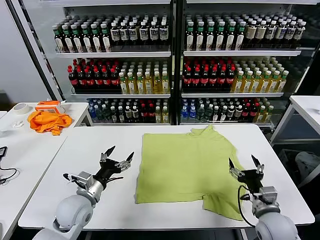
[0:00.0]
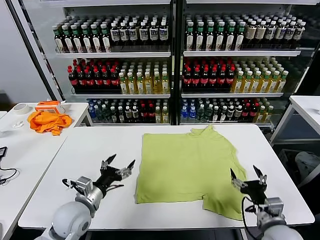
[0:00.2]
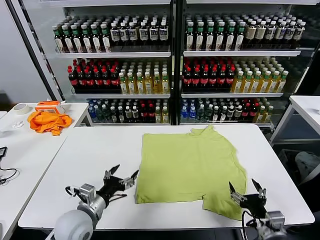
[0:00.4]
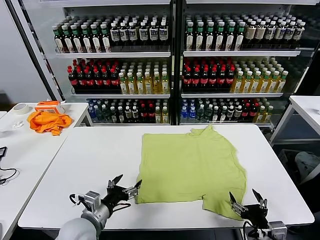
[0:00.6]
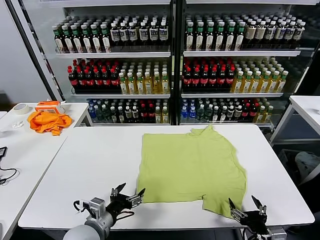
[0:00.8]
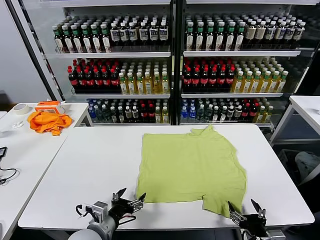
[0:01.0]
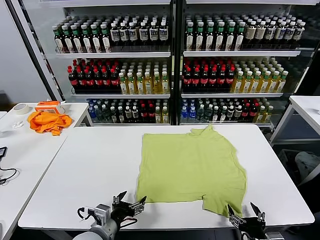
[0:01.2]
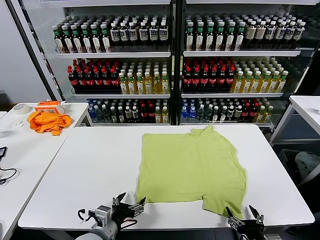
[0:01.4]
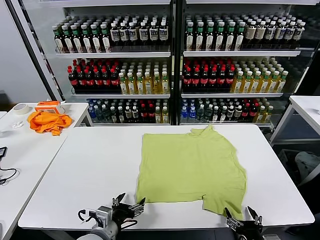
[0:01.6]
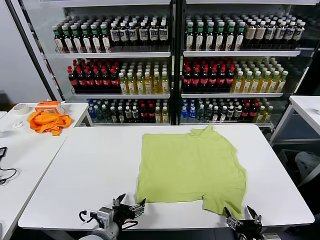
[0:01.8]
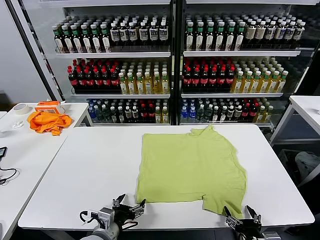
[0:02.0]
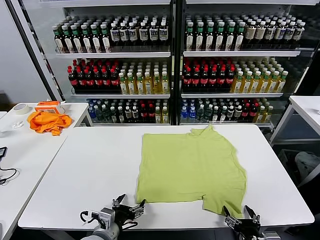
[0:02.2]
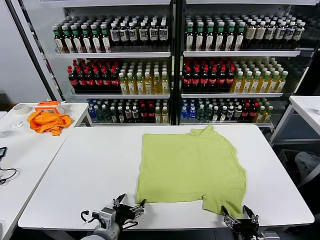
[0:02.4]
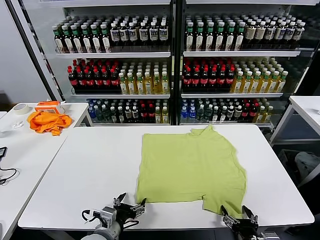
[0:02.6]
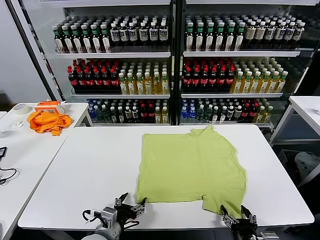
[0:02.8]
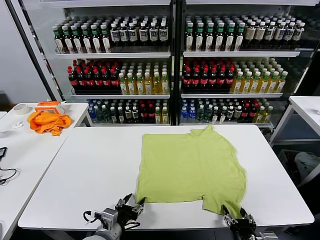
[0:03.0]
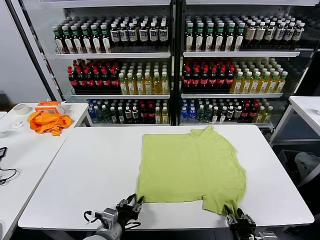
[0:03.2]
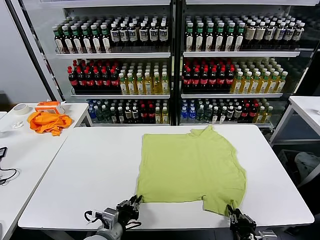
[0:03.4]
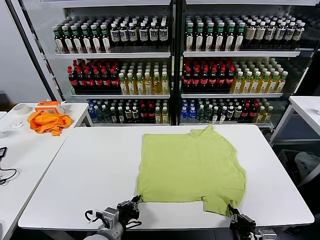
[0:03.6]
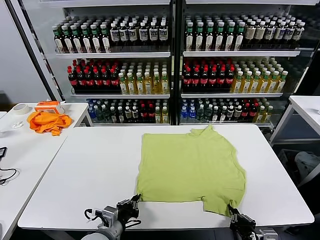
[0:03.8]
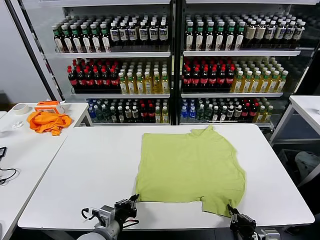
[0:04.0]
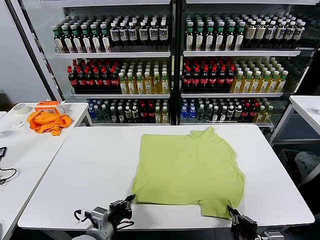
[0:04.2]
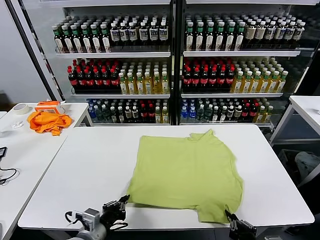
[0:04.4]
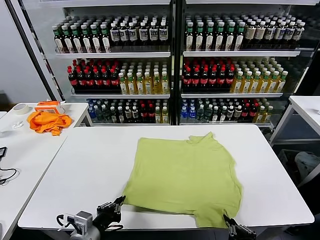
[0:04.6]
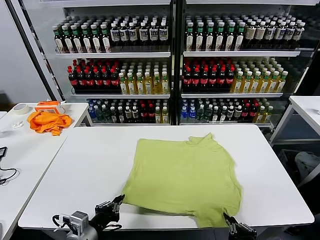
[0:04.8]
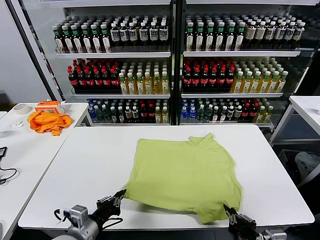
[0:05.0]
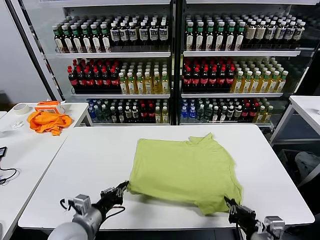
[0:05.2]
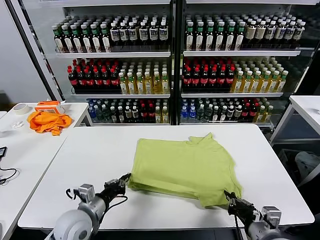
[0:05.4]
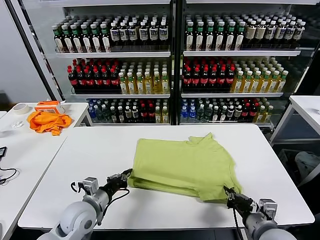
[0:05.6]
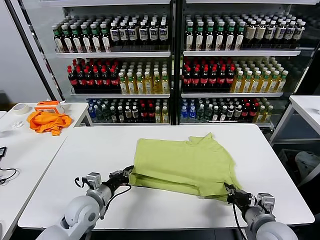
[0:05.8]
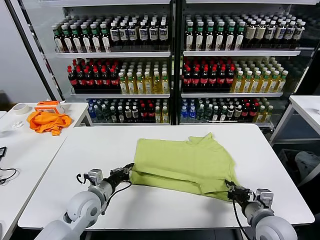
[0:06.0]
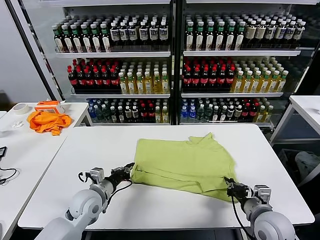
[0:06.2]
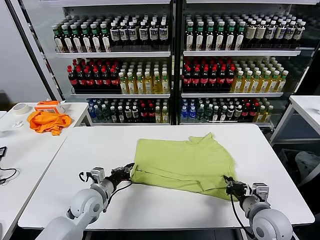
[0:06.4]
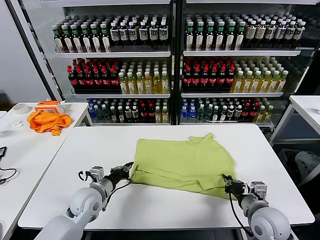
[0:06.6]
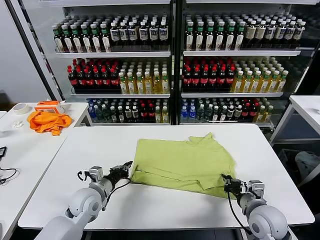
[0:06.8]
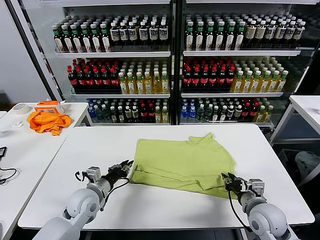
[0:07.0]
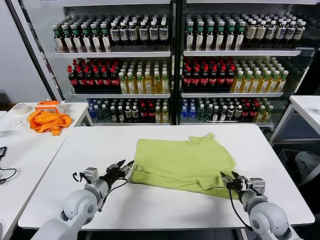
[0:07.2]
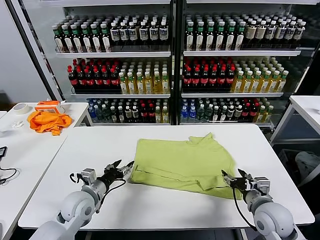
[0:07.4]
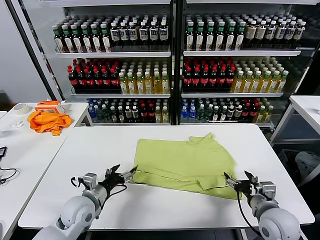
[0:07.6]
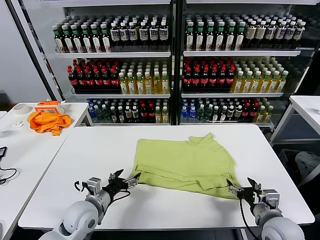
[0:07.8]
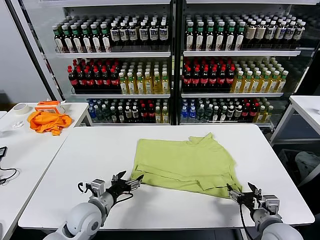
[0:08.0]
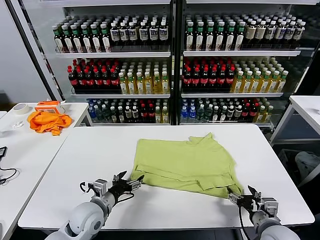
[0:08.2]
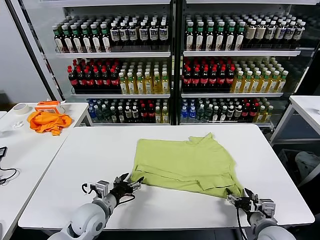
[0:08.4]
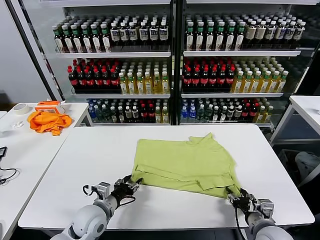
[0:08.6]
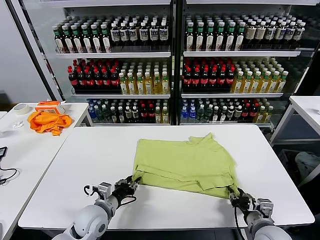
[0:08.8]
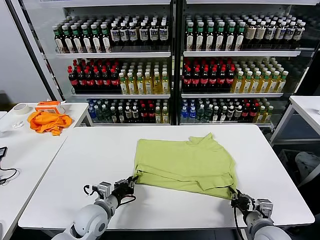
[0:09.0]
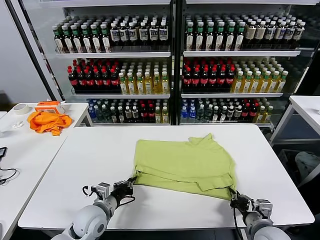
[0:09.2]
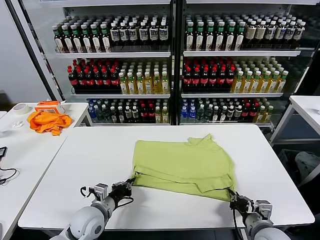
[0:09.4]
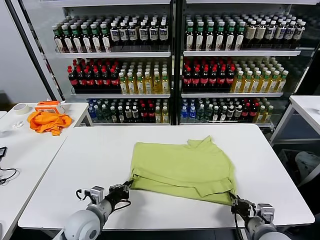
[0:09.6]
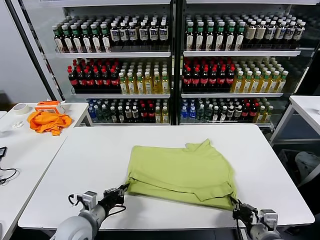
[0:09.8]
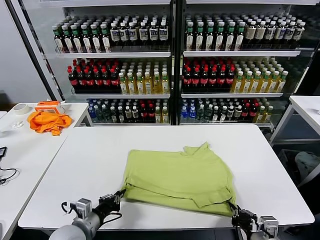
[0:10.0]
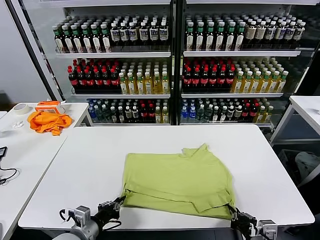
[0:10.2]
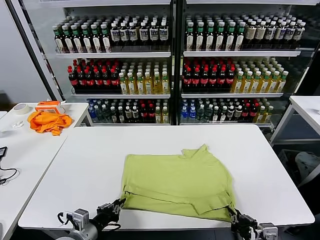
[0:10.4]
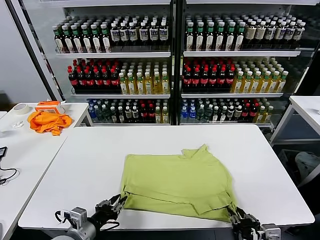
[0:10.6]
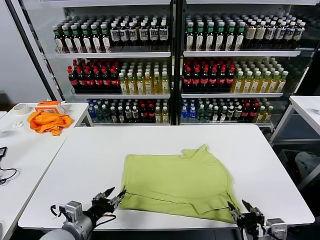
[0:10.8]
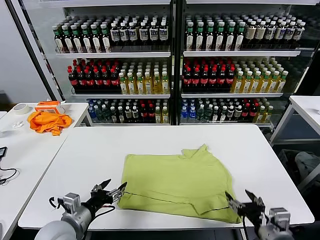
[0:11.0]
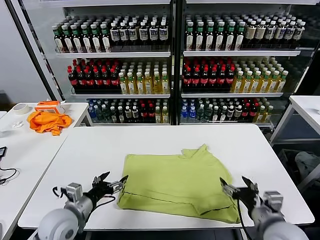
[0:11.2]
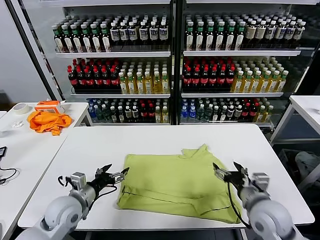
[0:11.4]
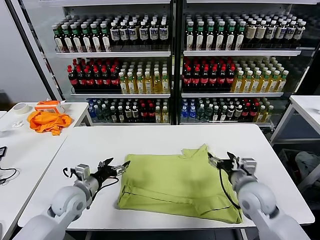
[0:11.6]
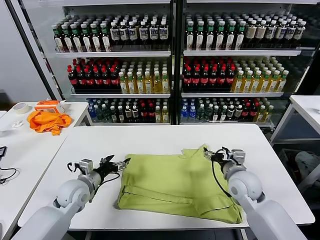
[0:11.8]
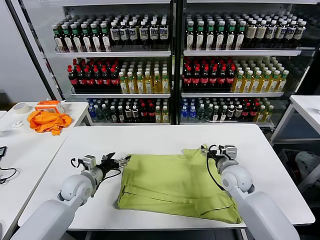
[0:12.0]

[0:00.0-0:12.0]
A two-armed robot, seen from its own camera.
Task of the whole recording: fold and organize the clothes.
Step, 0:00.0 to 0:03.6: use both grippers simultaneously to clamp the lower edge of the clothing fabric.
Step, 0:03.8 to 0:07.2: use both grippers to drag the lower edge of the fabric forward and fold it over the upper edge.
Step, 0:07.4 to 0:10.6: Drag the clothes downward with both gripper.
0:01.6 to 0:03.0: The right gripper closes its fingers.
0:03.0 to 0:04.4: The left gripper changes place by about 5 cm, and closes its fingers. Meanwhile the right gripper shifts about 5 cm upward, and closes its fingers.
0:04.4 to 0:06.0: The grippers both shift forward by approximately 15 cm.
0:06.0 to 0:07.6: The left gripper opens; the right gripper opens.
0:07.6 to 0:09.0: The left gripper closes; the right gripper closes up.
0:09.0 to 0:10.4: The two grippers go some 10 cm backward.
0:10.4 to 0:12.0: Both grippers move forward, approximately 25 cm. The right gripper opens. Meanwhile the left gripper opens up.

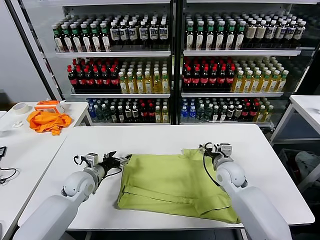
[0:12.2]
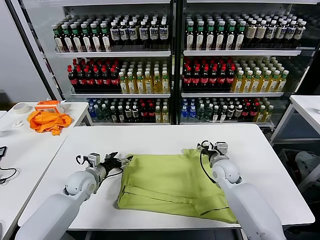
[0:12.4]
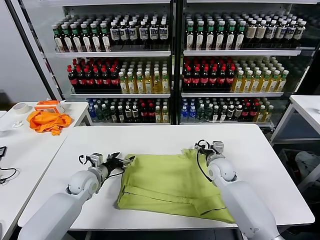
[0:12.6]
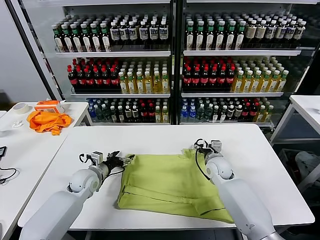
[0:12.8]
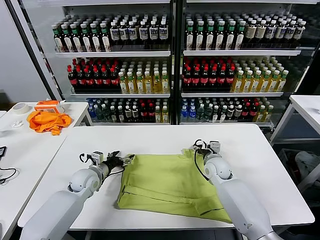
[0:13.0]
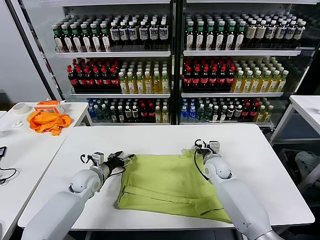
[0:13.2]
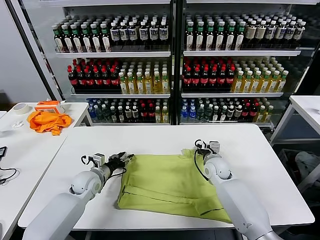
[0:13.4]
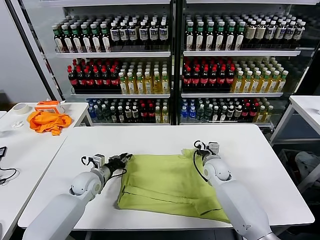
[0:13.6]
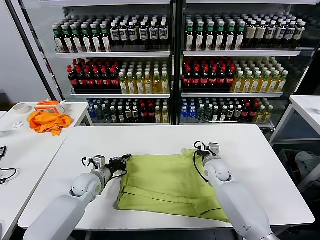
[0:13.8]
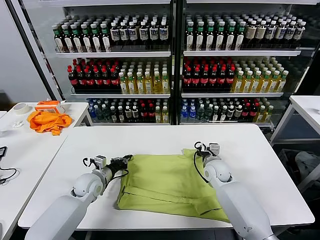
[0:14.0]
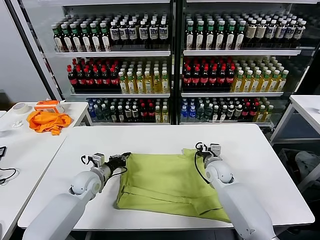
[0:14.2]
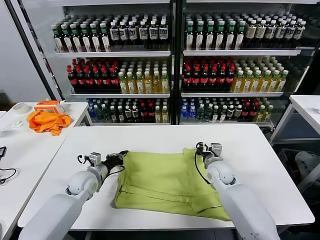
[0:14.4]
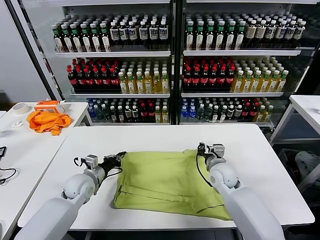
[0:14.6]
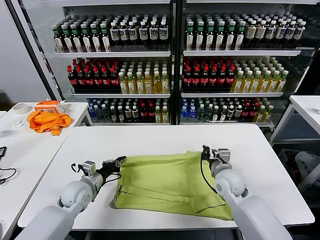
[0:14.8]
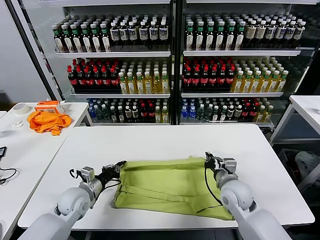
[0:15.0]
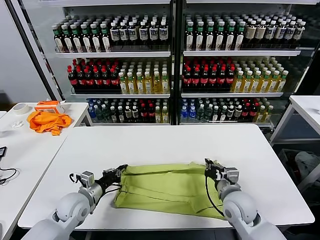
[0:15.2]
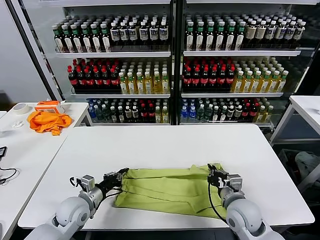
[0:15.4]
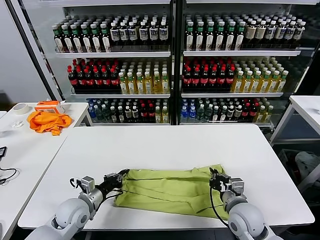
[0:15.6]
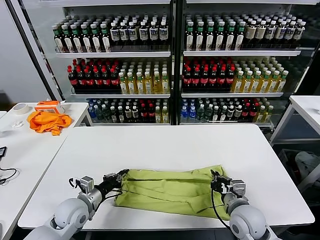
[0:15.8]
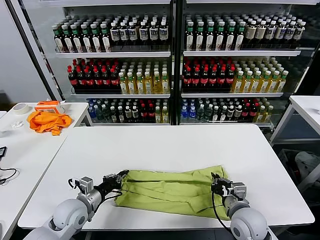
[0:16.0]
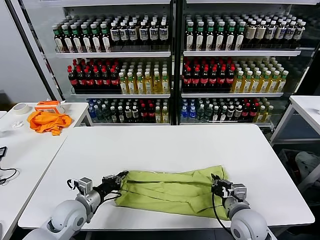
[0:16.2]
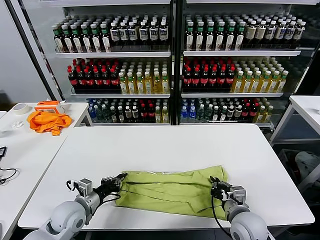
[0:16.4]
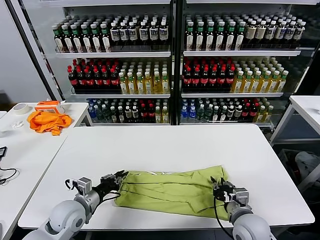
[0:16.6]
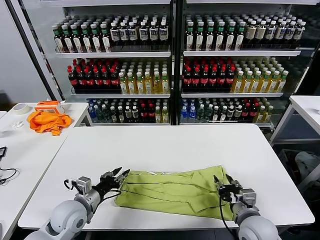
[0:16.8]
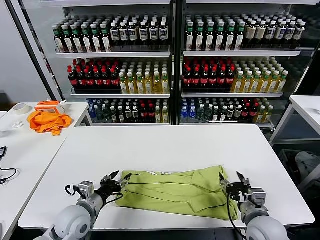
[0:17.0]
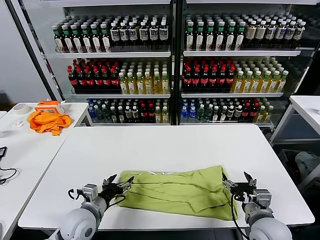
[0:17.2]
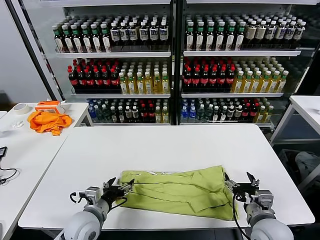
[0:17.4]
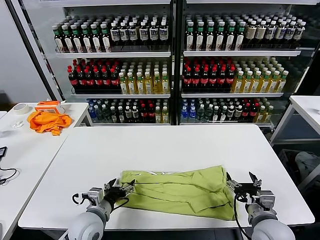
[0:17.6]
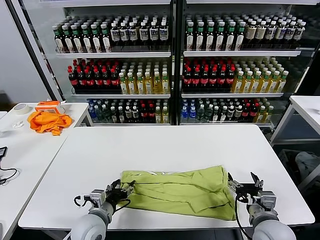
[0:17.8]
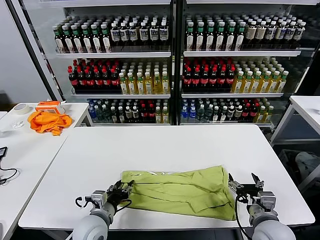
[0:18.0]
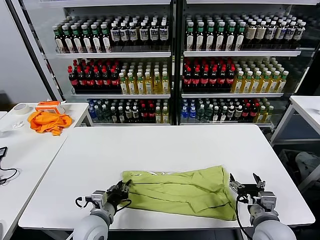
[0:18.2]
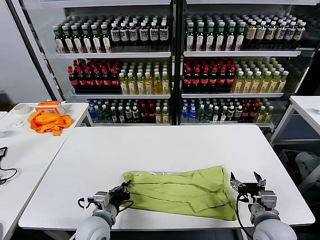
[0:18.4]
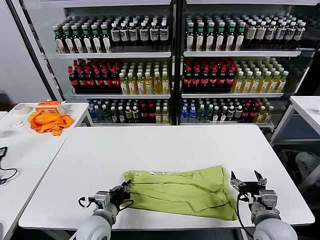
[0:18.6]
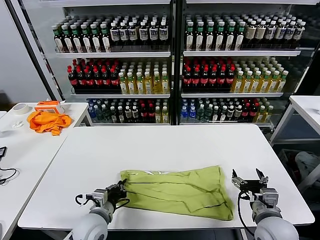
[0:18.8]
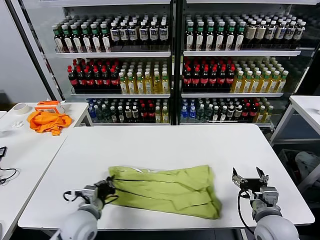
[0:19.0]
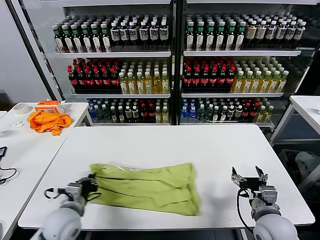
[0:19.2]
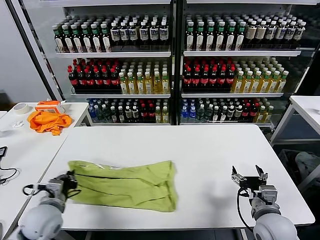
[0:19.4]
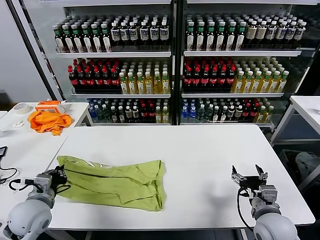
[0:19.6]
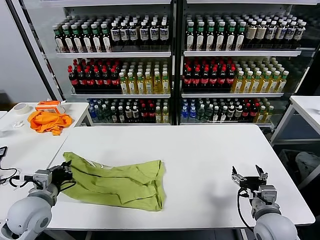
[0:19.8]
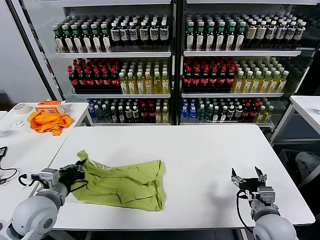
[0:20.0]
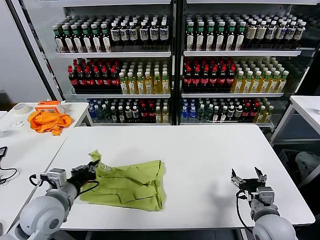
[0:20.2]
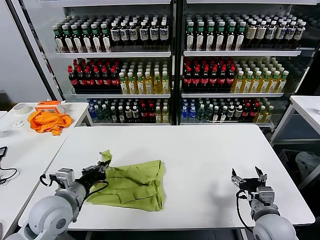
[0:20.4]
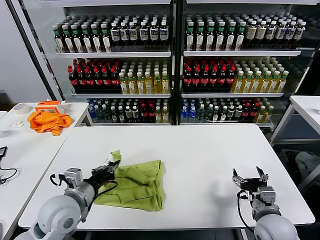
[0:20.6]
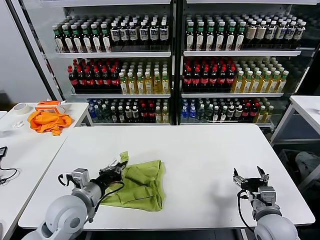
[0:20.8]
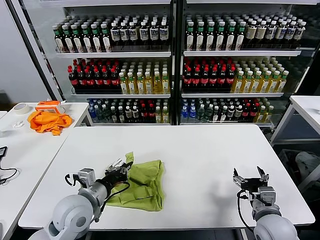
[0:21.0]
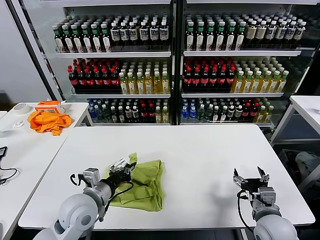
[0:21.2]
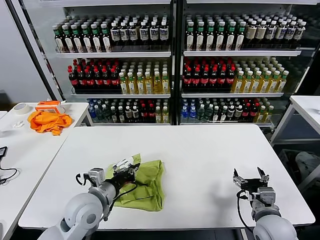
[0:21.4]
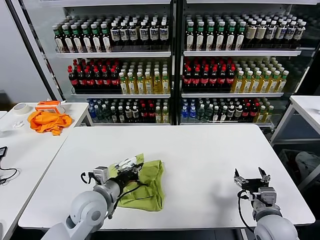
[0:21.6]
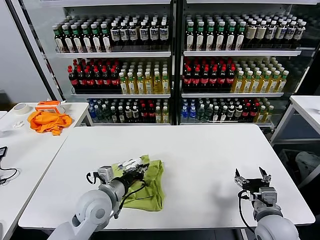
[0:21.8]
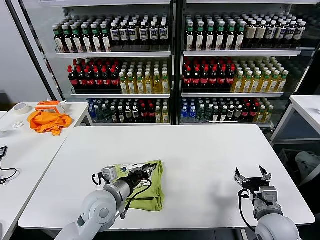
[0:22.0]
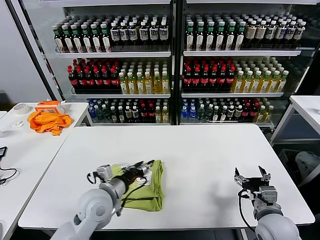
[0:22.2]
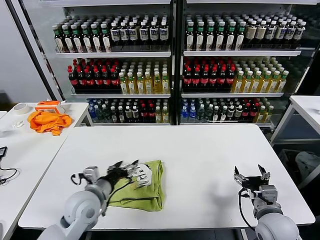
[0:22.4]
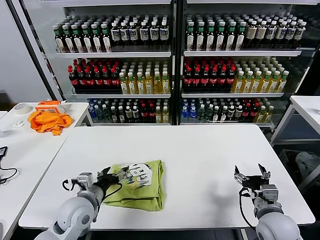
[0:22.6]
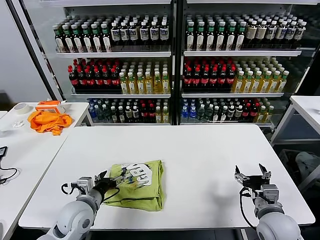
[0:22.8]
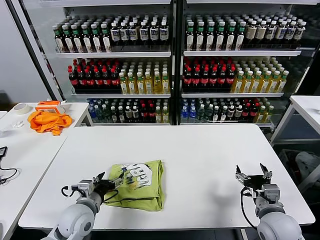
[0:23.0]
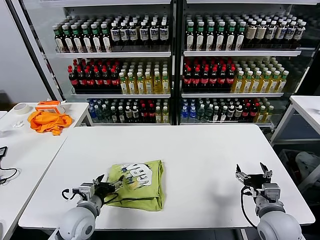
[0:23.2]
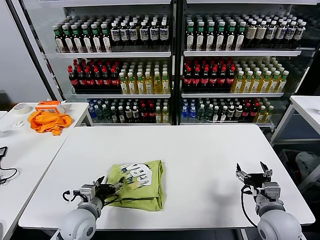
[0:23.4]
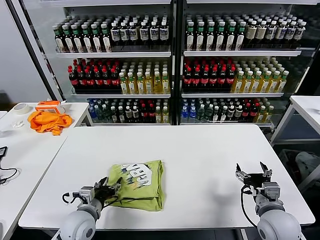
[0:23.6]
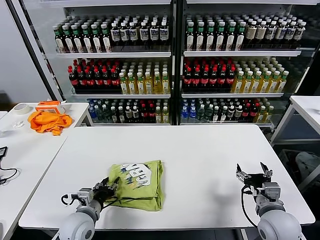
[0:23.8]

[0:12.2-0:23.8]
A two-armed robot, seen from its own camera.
Task of the whole recording: fold and organize the clothes.
Step, 0:12.2 to 0:13.8: use both grippers simultaneously to clamp the upper edge of the clothing fabric.
Step, 0:14.0 to 0:16.6: use both grippers to drag the upper edge of the fabric backward and fold it over the lower edge.
Step, 0:16.8 to 0:18.4: use the left gripper to clamp the left edge of the fabric.
Step, 0:18.6 to 0:22.0: use the left gripper to drag the left edge of the fabric to the left and folds it over the right edge.
0:12.2 to 0:13.6: The left gripper closes up. The right gripper changes place by approximately 5 cm, and closes.
0:13.6 to 0:15.0: The left gripper goes approximately 5 cm backward, and closes up; the right gripper heads backward, covering approximately 15 cm.
0:15.0 to 0:16.6: The right gripper travels backward by roughly 10 cm, and opens its fingers; the left gripper shifts approximately 5 cm backward.
0:16.6 to 0:18.0: The right gripper shifts by about 5 cm, and opens its fingers. Meanwhile the left gripper moves to the right, approximately 5 cm, and opens up.
0:18.0 to 0:19.4: The left gripper goes some 10 cm to the left, and closes up.
0:19.4 to 0:21.0: The left gripper goes about 10 cm to the right and upward.
0:21.0 to 0:22.4: The left gripper opens.
0:22.4 to 0:23.8: The left gripper moves downward, approximately 5 cm.
